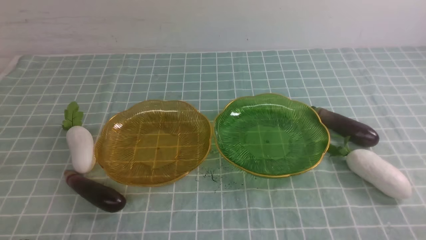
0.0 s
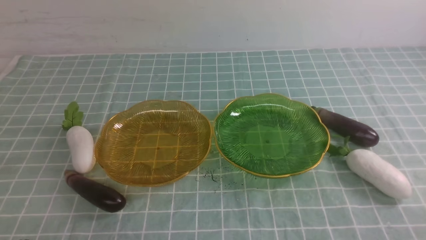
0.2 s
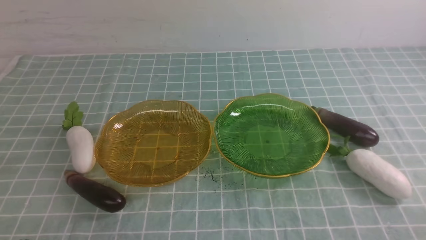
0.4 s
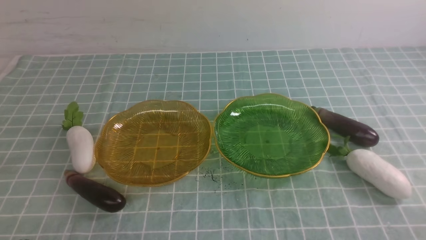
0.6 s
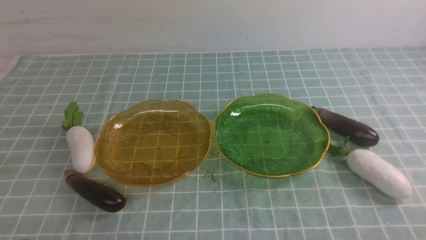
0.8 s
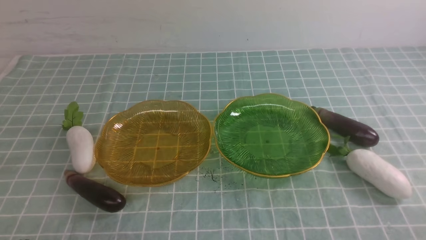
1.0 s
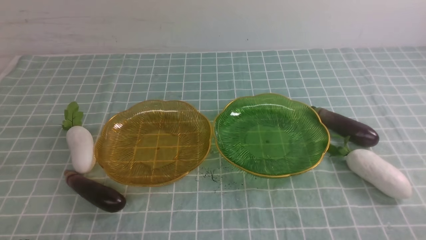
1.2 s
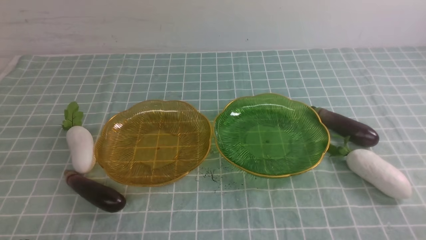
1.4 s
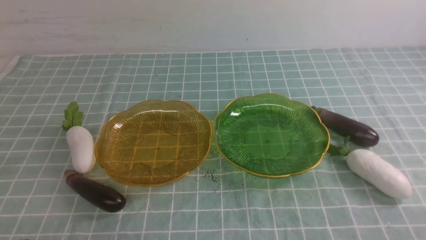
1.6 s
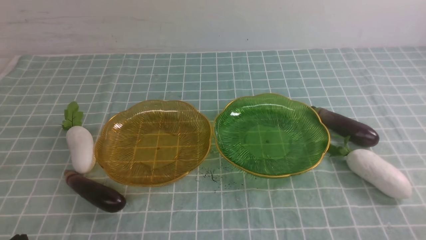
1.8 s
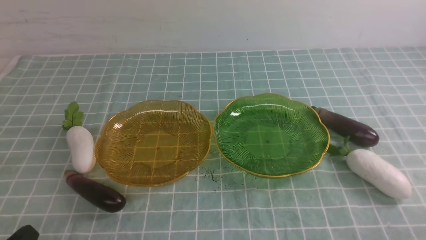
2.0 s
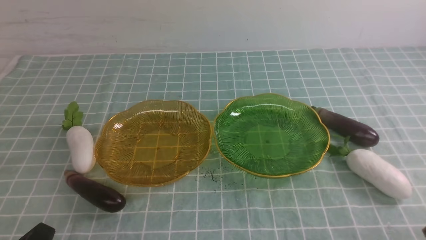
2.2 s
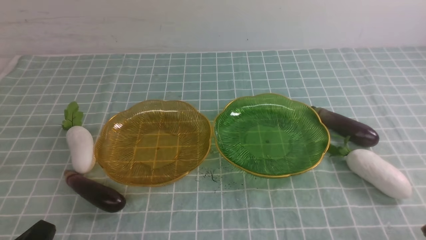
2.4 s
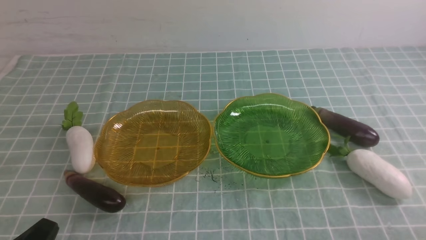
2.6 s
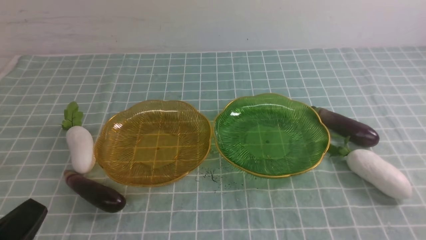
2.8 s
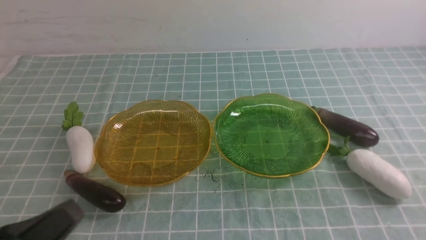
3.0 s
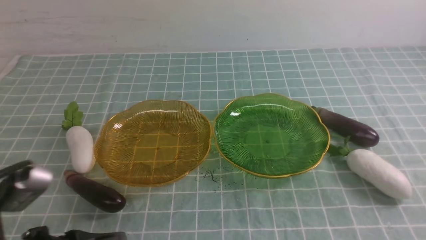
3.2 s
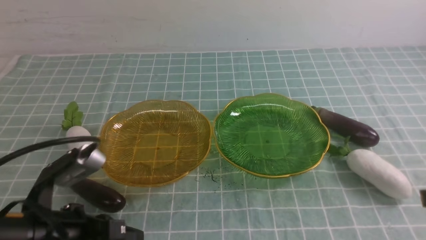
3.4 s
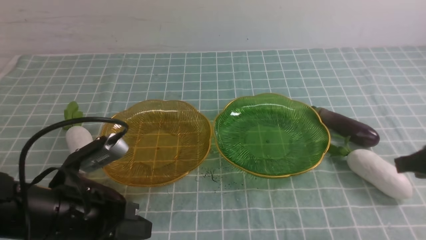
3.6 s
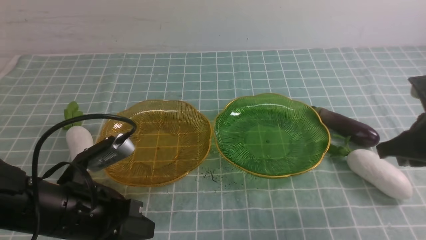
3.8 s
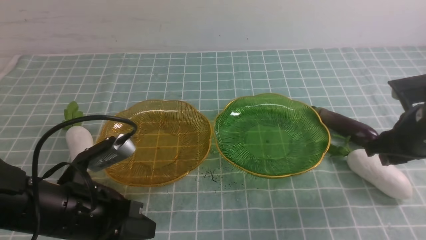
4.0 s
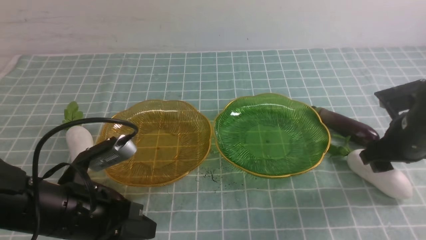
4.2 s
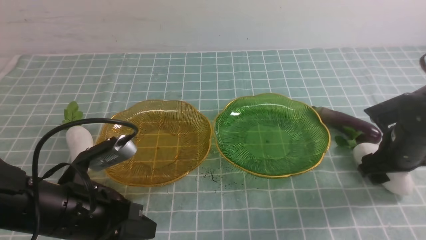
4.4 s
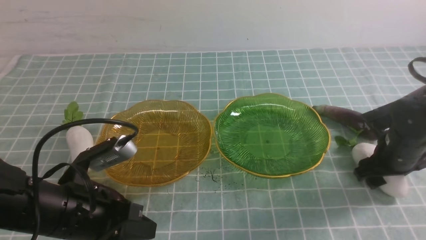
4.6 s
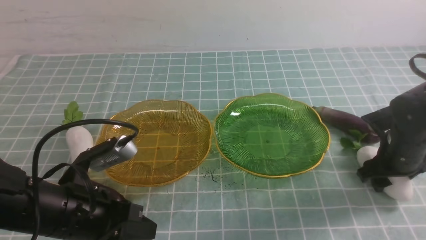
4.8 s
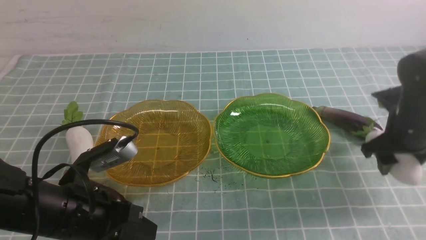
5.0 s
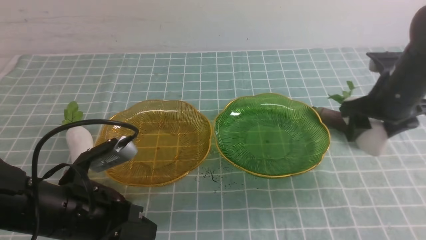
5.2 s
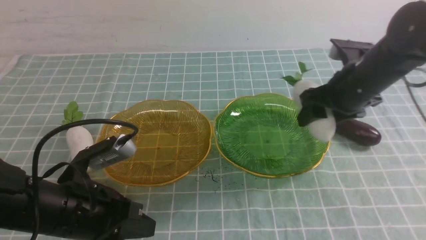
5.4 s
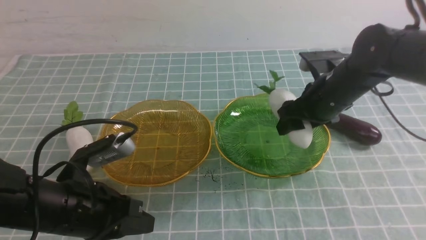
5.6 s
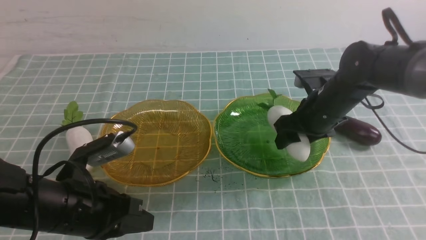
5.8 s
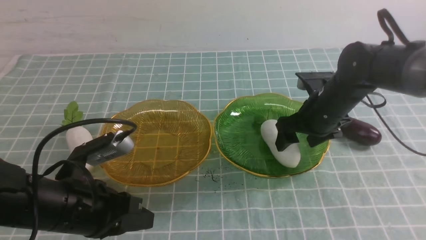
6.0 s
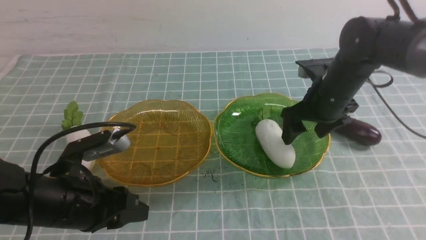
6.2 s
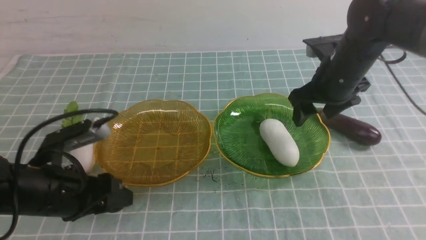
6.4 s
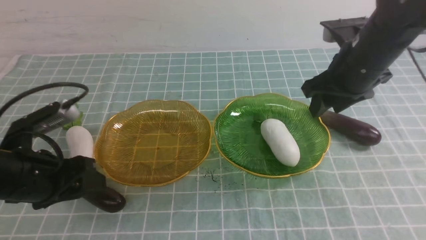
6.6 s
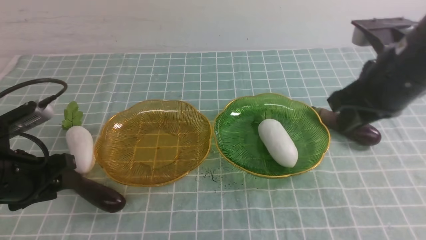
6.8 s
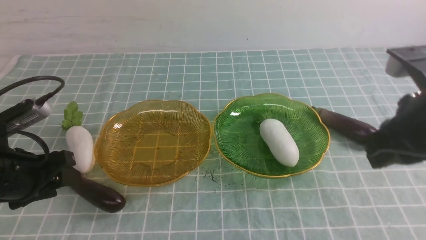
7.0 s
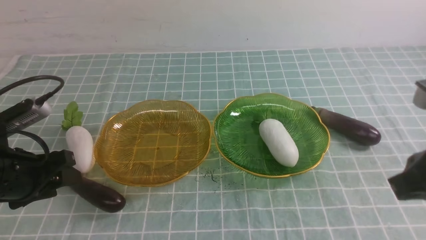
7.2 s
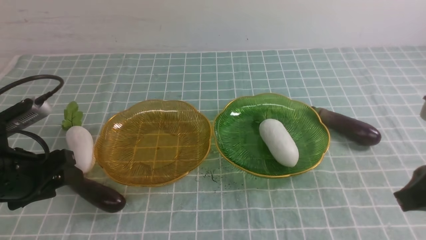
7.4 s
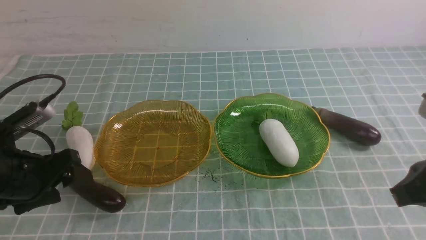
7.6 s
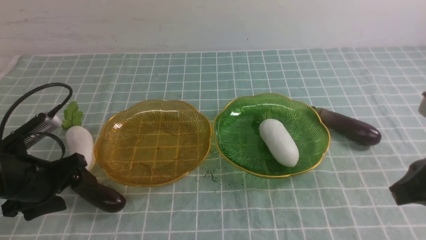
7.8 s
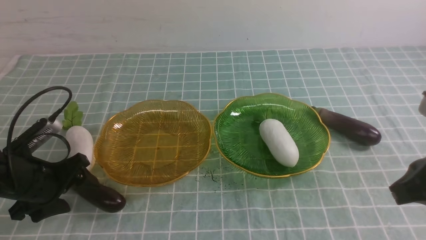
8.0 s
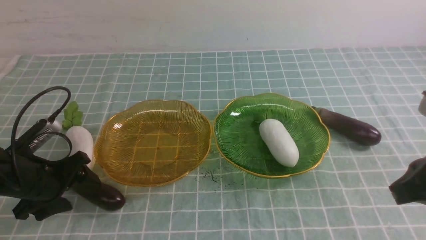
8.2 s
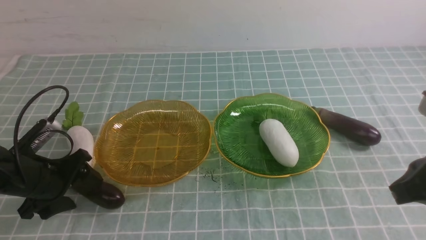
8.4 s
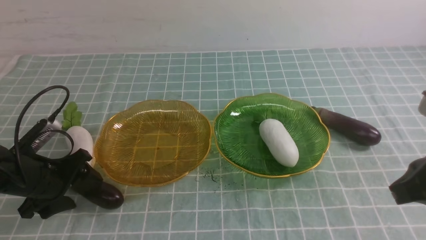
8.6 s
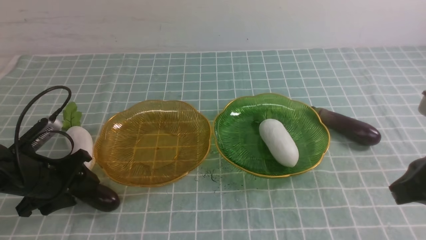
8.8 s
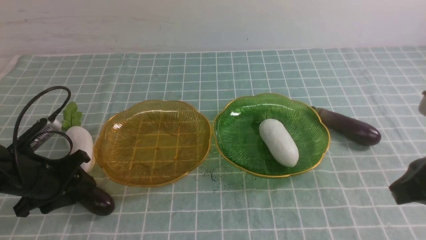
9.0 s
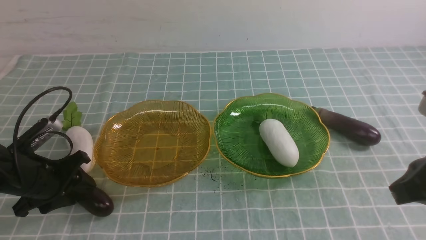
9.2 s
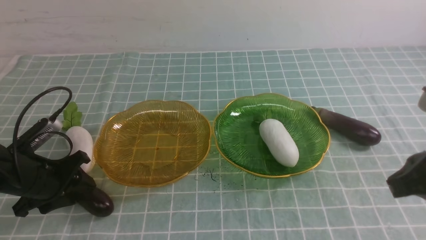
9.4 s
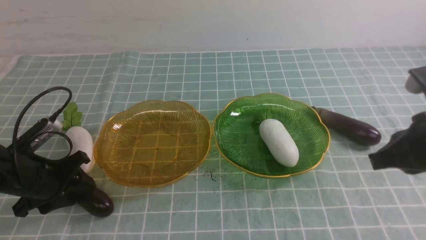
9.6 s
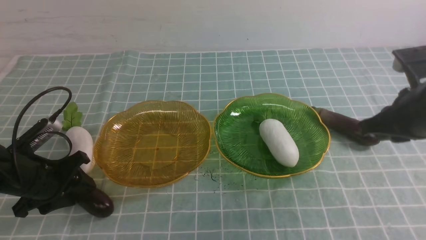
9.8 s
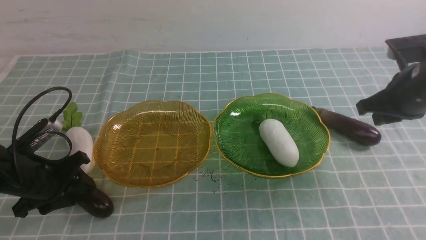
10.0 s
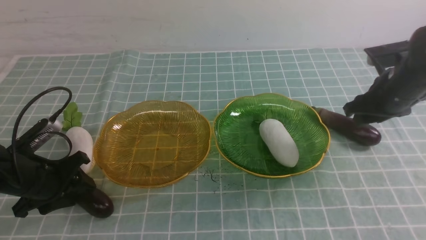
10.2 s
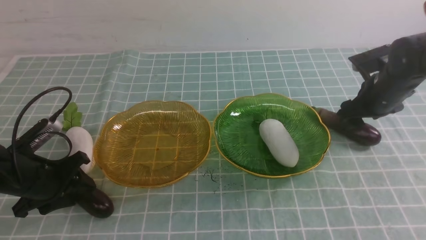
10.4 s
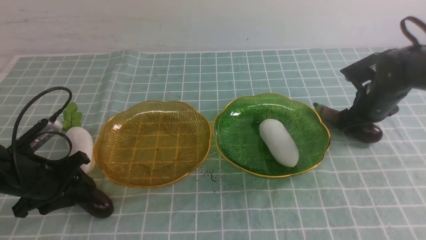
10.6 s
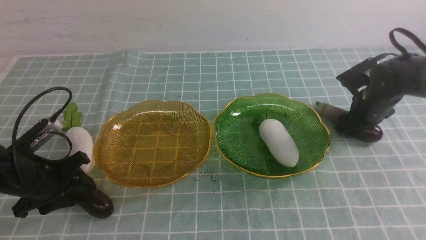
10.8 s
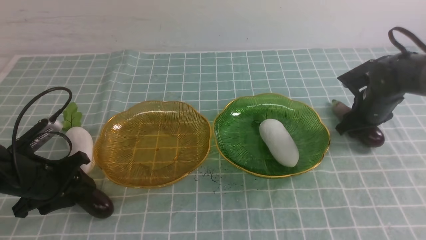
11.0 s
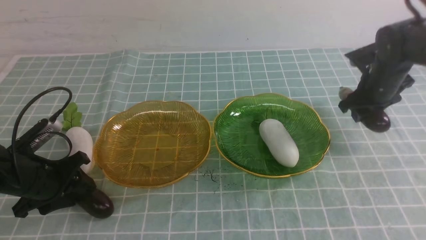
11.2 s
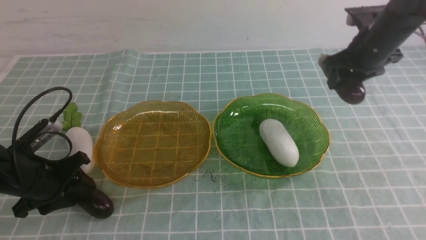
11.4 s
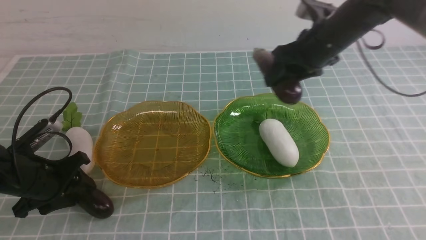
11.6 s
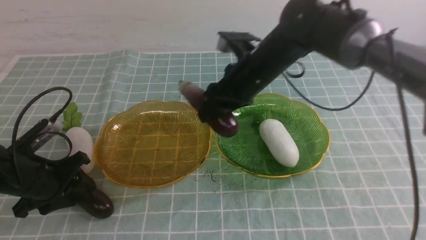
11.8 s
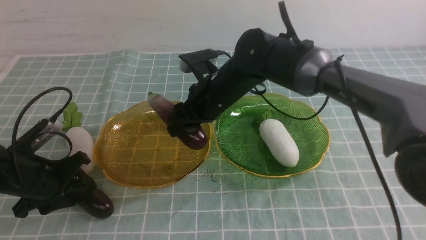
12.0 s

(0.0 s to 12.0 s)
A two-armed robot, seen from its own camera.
Step, 0.0 s - 6.0 s: use the right arm to grab a radish and put it into the right plate.
0.0 s - 1.6 s: Neither gripper changes place.
1.6 s - 3.0 s: The left gripper heads upward, covering about 10 cm.
3.0 s - 4.4 s: The right gripper is displaced forward and downward by approximately 30 cm, and opens up, while the left gripper heads forward, covering about 10 cm.
4.4 s - 6.0 s: The right gripper heads to the left, forward and upward, covering approximately 15 cm.
6.0 s - 7.6 s: The left gripper shifts roughly 10 cm to the left and forward, and opens. The right gripper heads backward and upward, covering roughly 25 cm, and closes up.
7.6 s - 9.0 s: The left gripper shifts by roughly 5 cm.
9.0 s - 10.4 s: The right gripper is displaced forward and downward by approximately 30 cm, and opens its fingers.
10.4 s - 12.0 s: The right gripper travels to the left by about 30 cm.

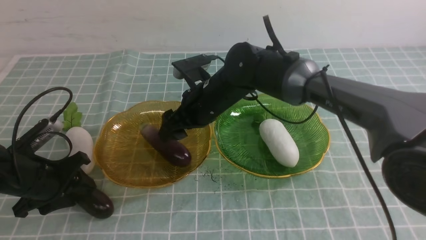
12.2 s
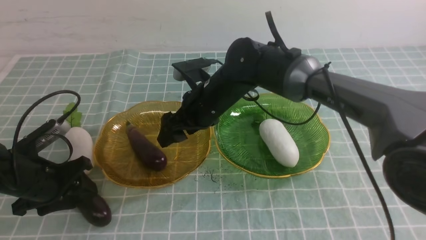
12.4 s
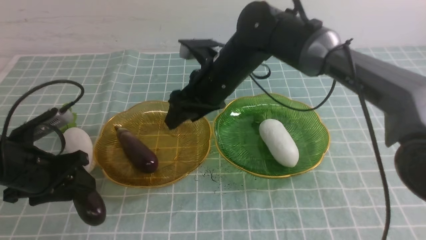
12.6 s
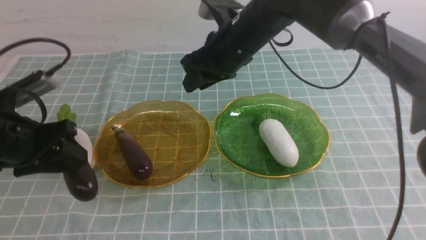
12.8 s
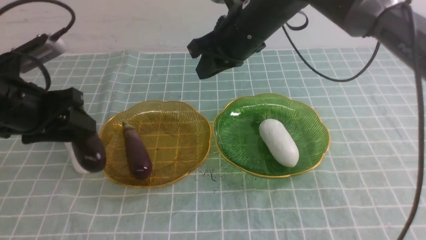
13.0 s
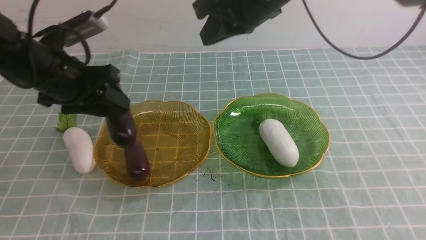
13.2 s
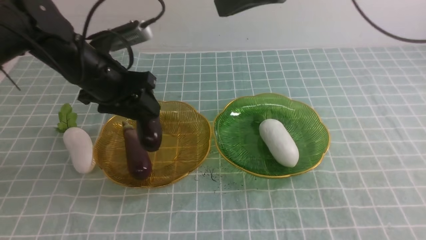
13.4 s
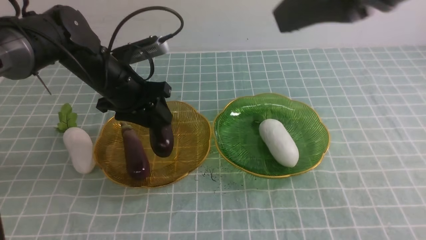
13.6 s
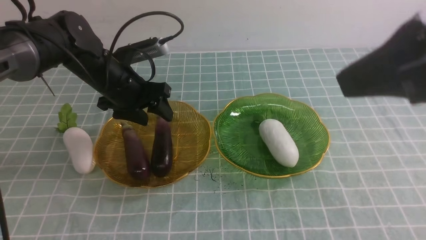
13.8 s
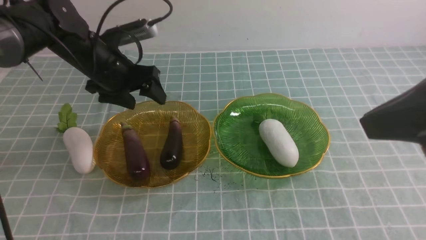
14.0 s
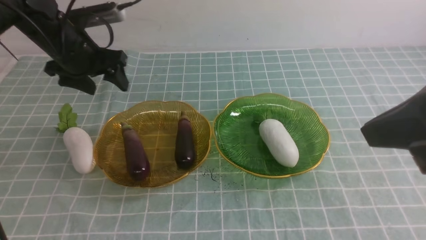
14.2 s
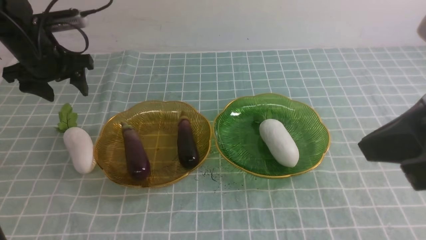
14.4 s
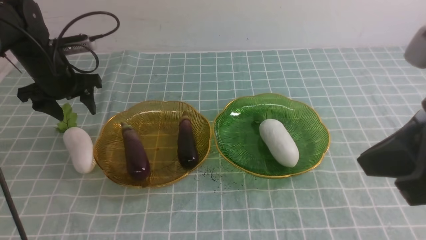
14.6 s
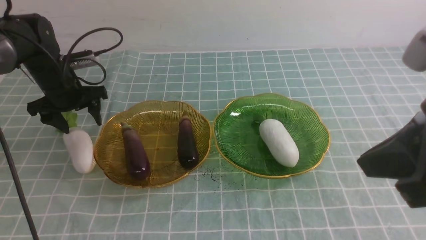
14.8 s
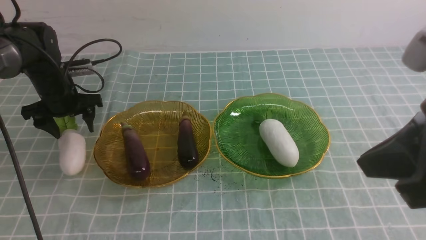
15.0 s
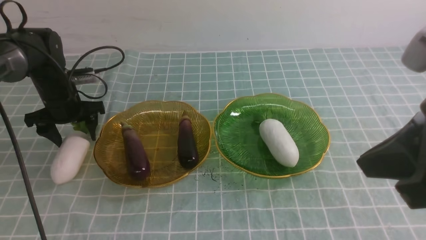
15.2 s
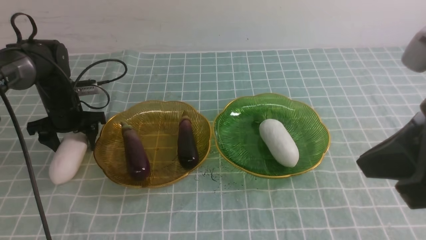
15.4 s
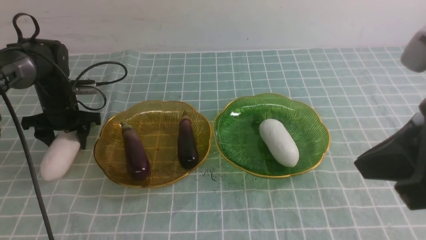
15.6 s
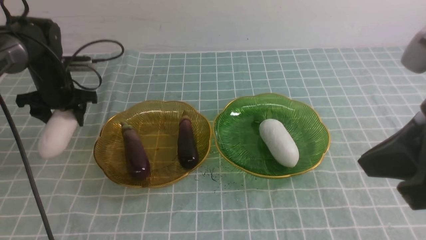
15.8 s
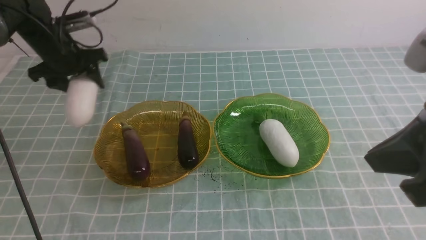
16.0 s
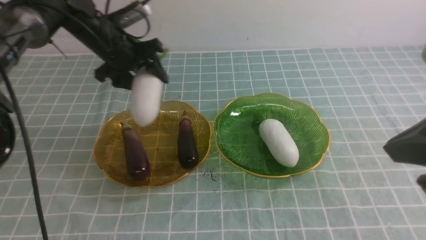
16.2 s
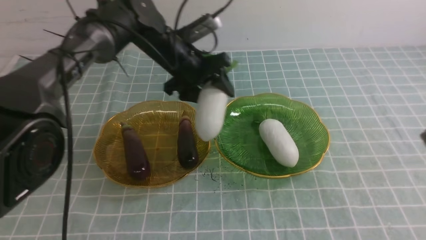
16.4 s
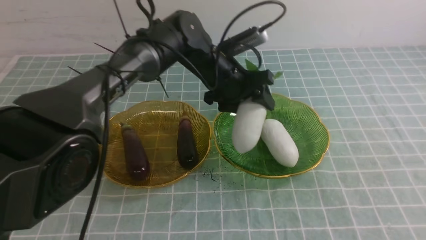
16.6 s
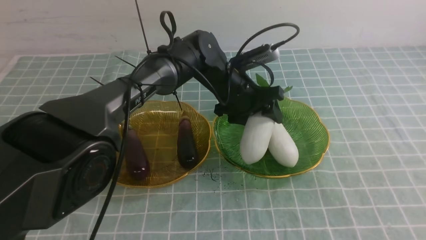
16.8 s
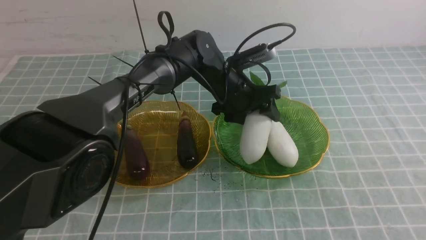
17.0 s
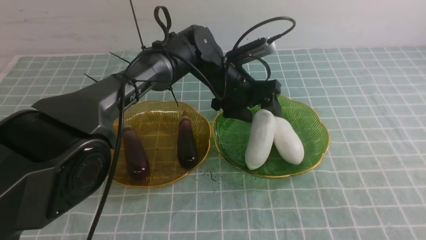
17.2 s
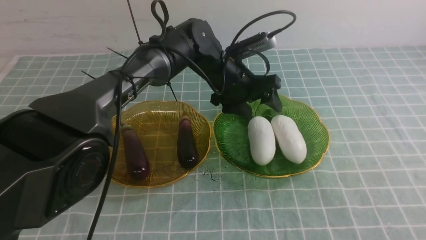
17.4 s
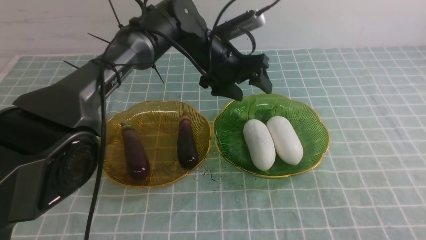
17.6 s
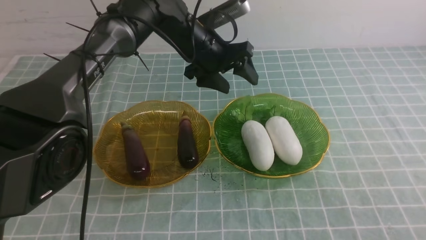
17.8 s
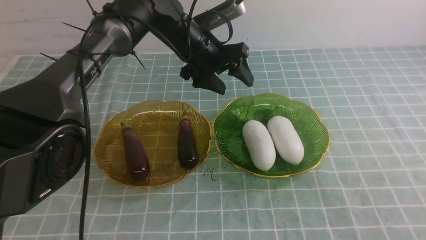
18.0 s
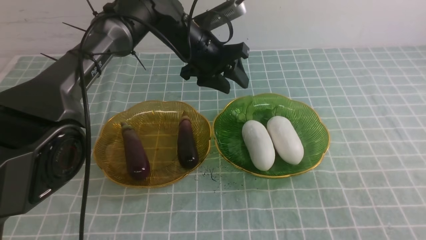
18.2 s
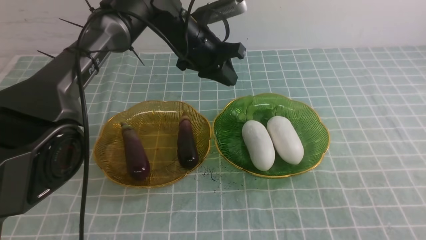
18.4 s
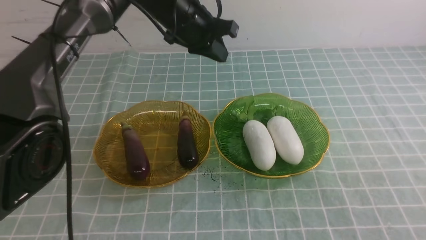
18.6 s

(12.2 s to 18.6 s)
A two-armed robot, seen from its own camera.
Step, 12.4 s - 13.8 s: use the left arm to grab an eggplant and put it into the left plate.
Step, 14.0 s - 17.4 s: use the left arm to grab a radish and put it into the right plate.
12.2 s - 13.8 s: The left gripper shifts some 20 cm forward, to the right and upward; the right gripper is displaced upward, backward and to the right by about 40 cm, and closes its fingers.
13.8 s - 15.4 s: The left gripper travels to the left and downward by approximately 15 cm. The right gripper moves downward, some 5 cm.
15.4 s - 17.0 s: The right gripper shifts about 20 cm backward and to the right. The left gripper travels to the right by roughly 30 cm.
17.0 s - 18.6 s: The left gripper moves upward and to the left, about 15 cm, and closes its fingers, while the right gripper heads downward and forward, covering about 15 cm.
